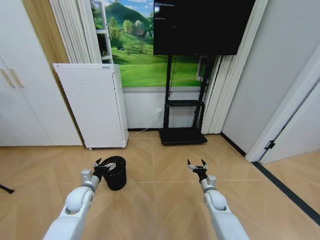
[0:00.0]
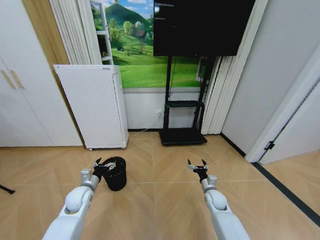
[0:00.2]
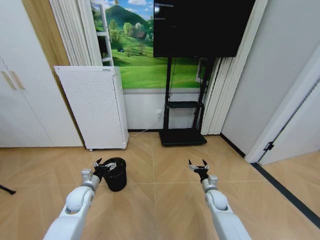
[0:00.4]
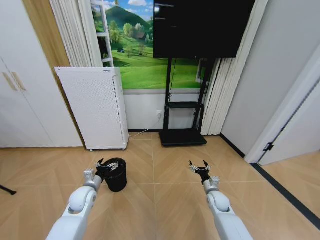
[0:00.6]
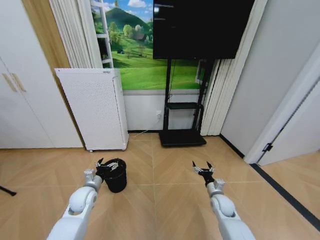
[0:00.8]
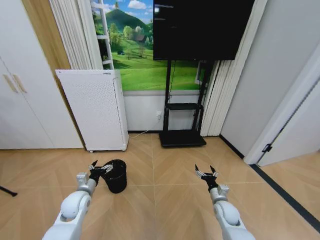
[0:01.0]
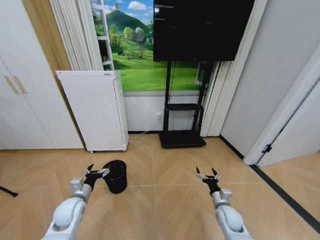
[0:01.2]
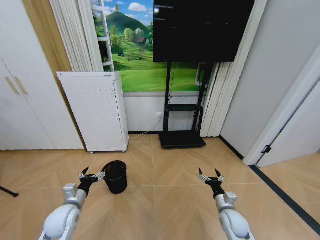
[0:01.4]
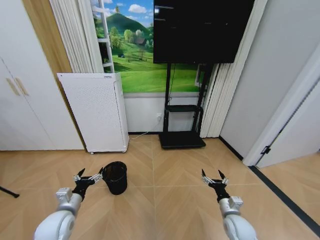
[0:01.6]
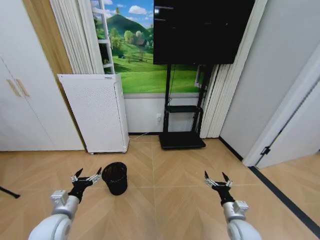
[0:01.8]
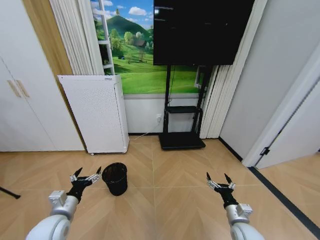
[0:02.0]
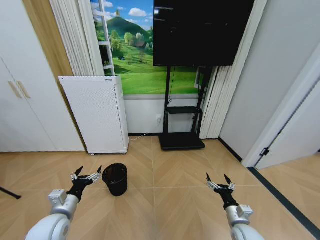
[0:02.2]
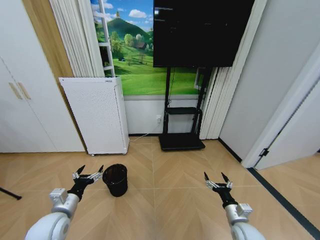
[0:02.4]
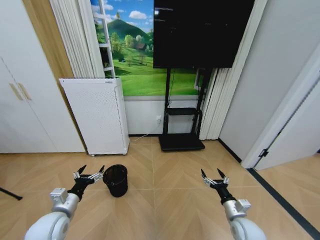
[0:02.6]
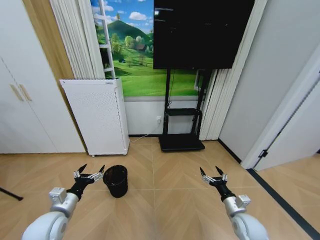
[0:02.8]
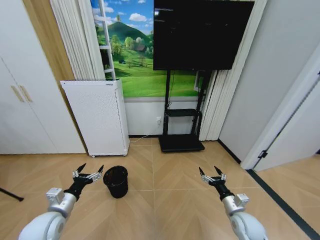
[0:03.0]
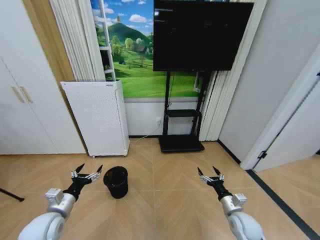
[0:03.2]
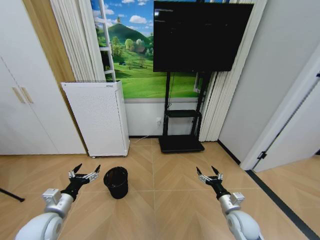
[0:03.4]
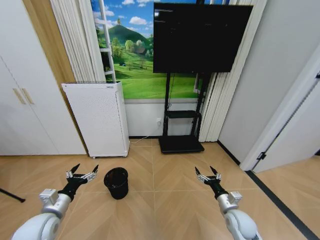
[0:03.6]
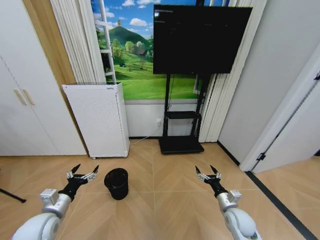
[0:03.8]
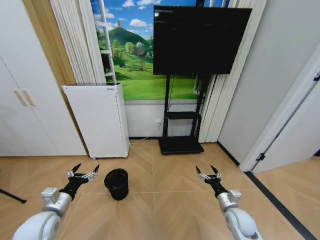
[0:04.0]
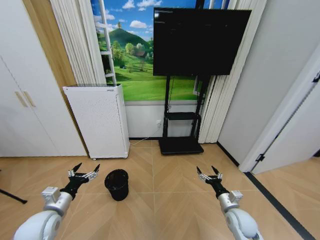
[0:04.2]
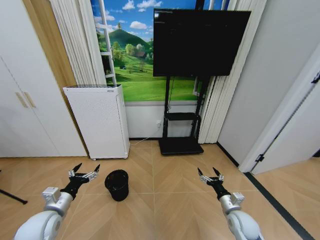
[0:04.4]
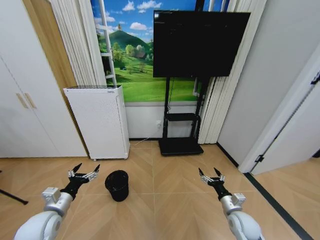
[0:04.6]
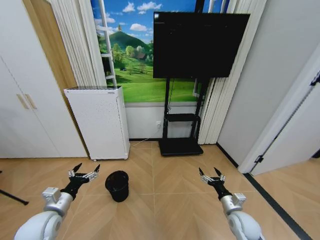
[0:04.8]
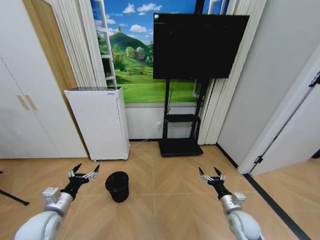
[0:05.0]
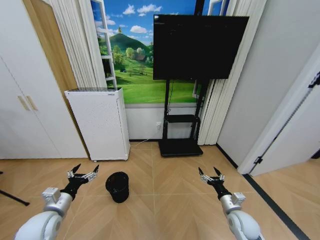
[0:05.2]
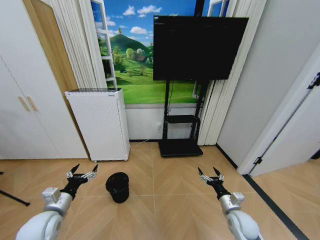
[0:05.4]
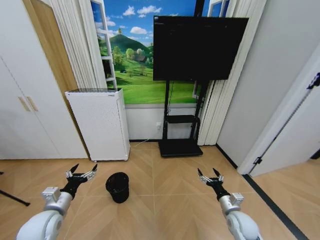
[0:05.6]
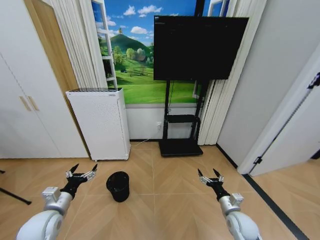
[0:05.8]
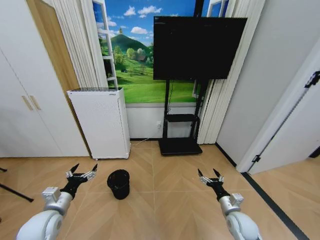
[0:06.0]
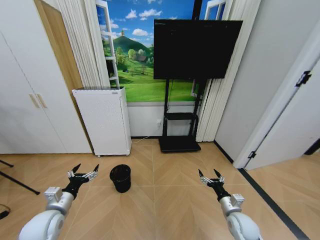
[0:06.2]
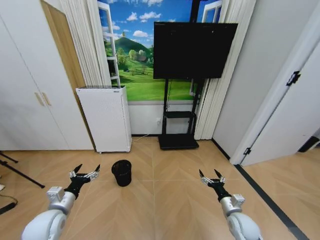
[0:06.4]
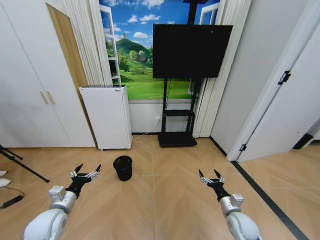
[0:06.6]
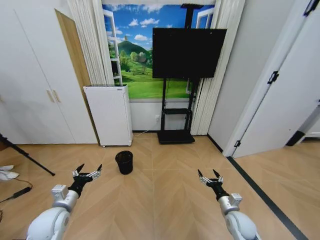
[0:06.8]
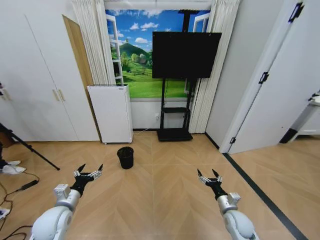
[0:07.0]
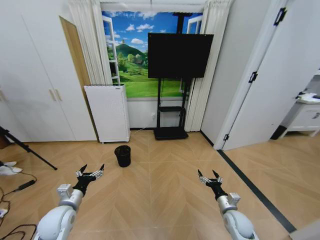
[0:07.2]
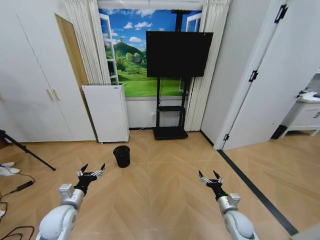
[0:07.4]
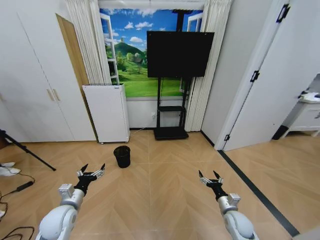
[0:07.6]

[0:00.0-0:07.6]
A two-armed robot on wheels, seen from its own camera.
Task of the whole recording: Pick up the trash bin and place the garbage on the floor into it.
0:00.0 to 0:01.6: The two grippers go approximately 10 cm backward.
0:01.6 to 0:04.6: The grippers stay close to where they were, moving slightly.
0:04.6 to 0:06.0: Both grippers stay about where they are.
